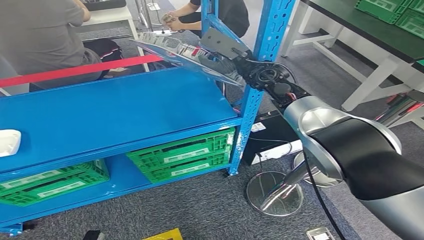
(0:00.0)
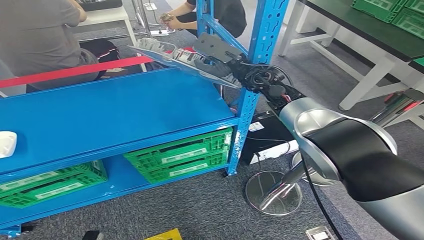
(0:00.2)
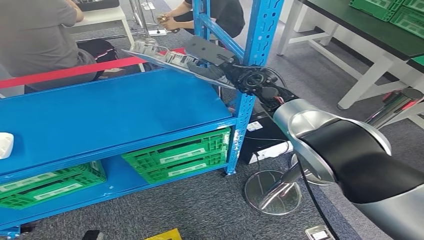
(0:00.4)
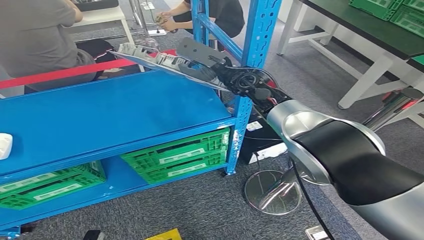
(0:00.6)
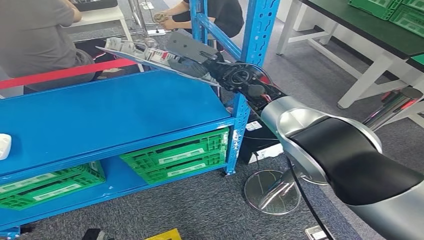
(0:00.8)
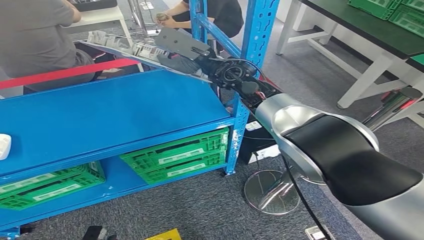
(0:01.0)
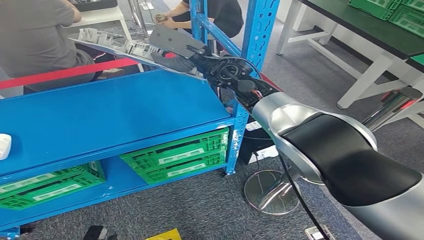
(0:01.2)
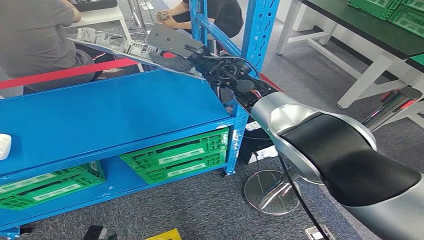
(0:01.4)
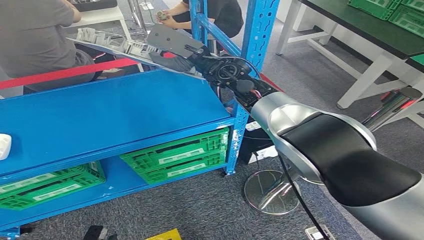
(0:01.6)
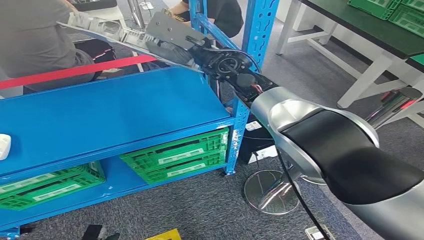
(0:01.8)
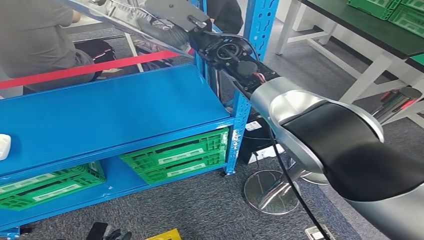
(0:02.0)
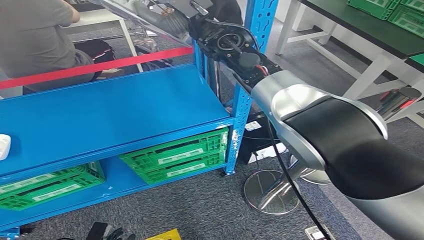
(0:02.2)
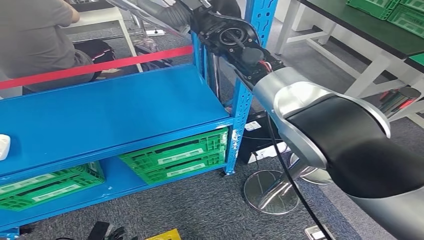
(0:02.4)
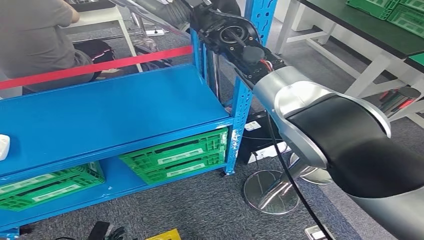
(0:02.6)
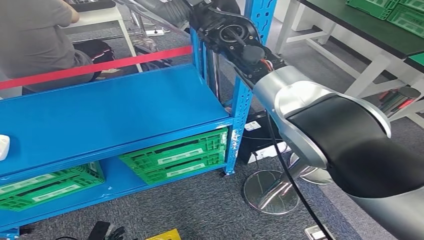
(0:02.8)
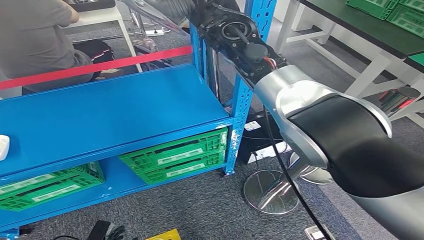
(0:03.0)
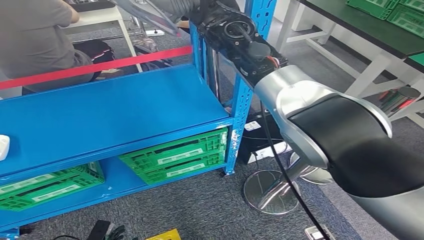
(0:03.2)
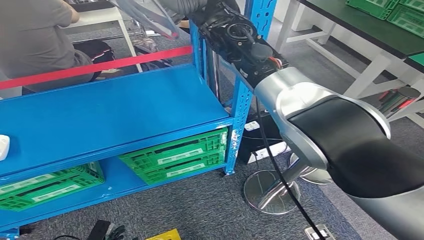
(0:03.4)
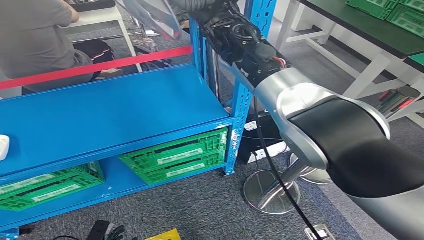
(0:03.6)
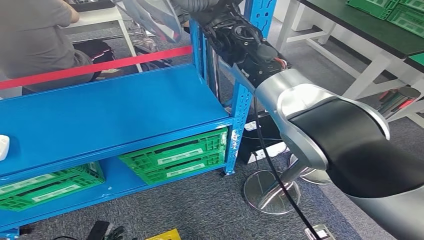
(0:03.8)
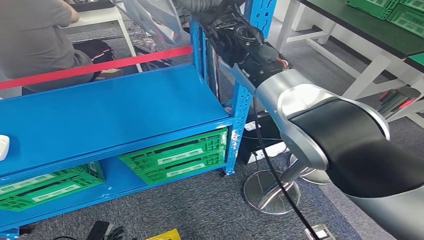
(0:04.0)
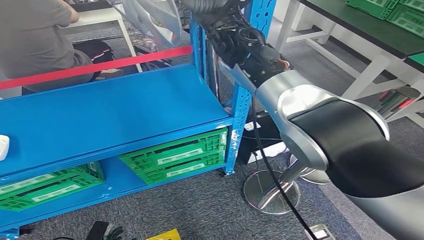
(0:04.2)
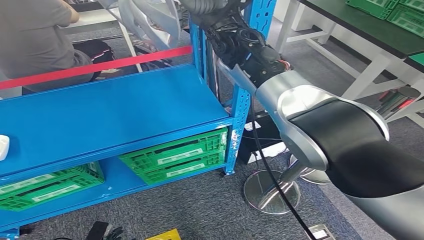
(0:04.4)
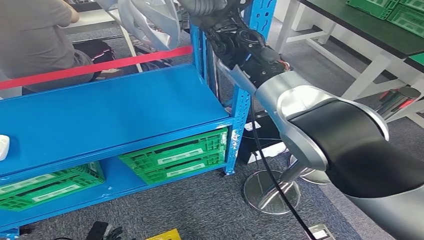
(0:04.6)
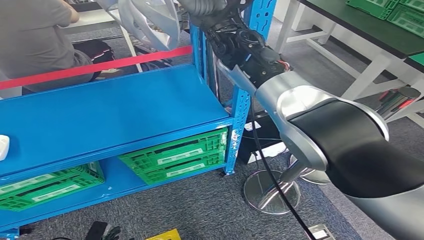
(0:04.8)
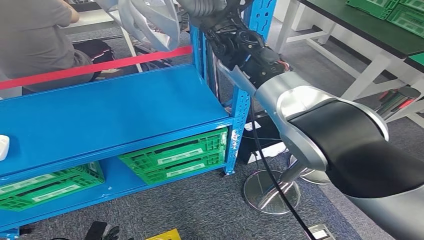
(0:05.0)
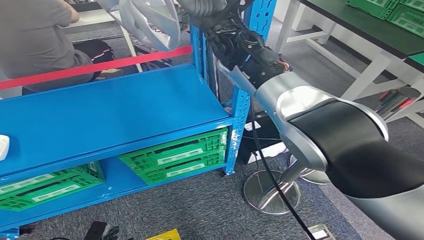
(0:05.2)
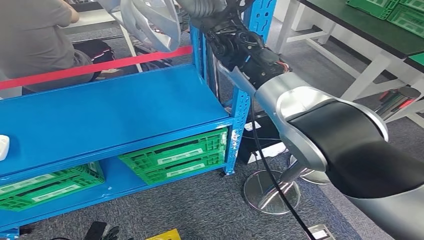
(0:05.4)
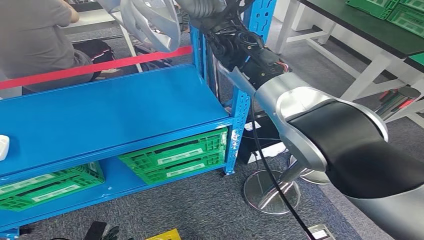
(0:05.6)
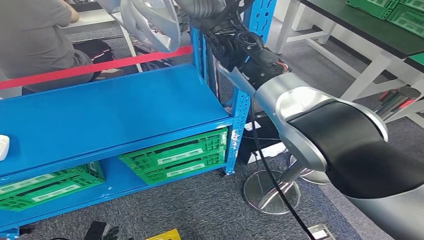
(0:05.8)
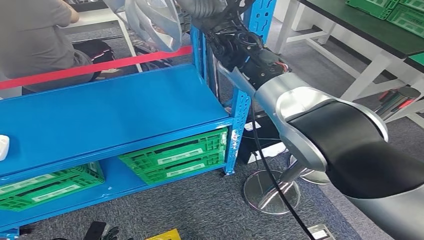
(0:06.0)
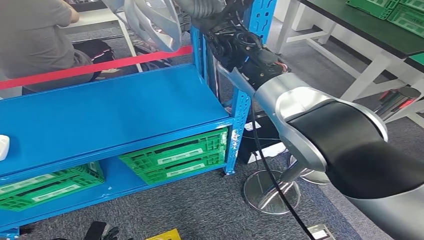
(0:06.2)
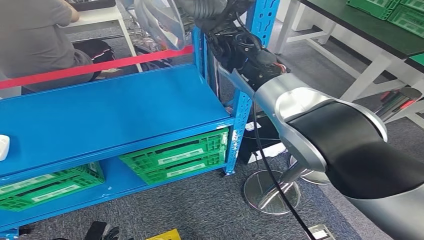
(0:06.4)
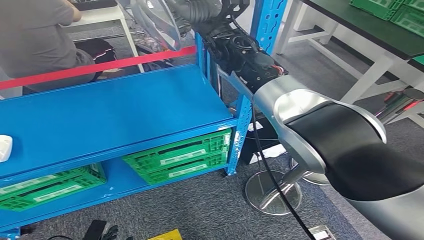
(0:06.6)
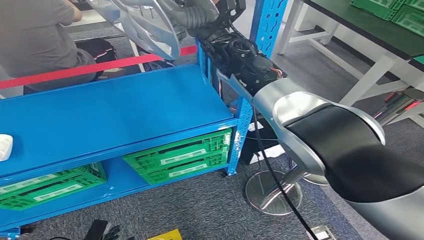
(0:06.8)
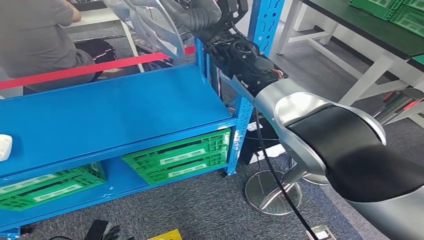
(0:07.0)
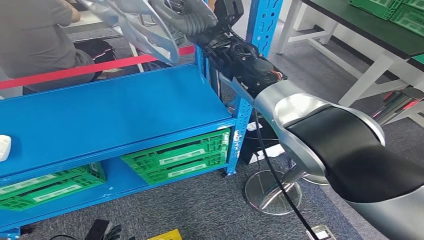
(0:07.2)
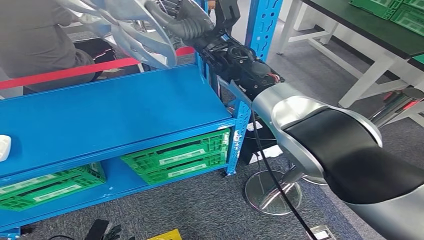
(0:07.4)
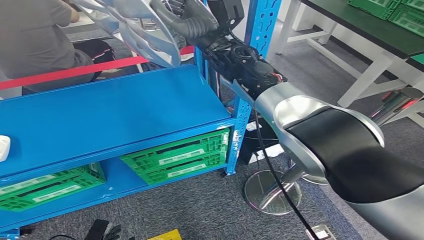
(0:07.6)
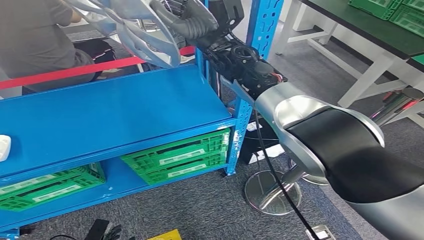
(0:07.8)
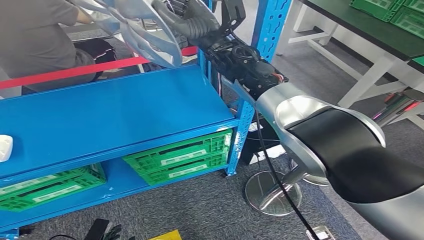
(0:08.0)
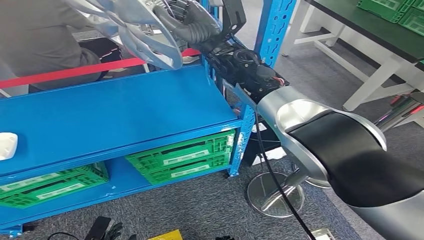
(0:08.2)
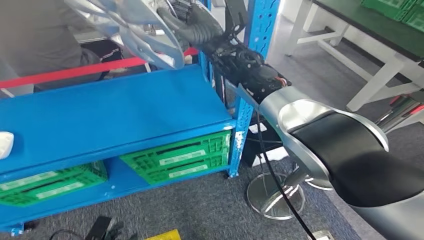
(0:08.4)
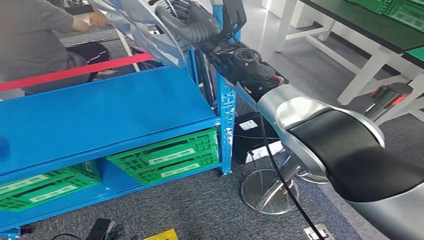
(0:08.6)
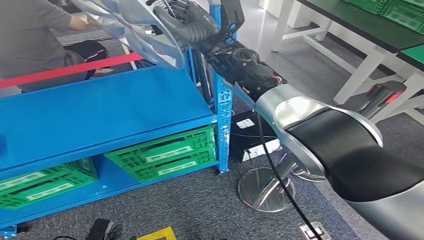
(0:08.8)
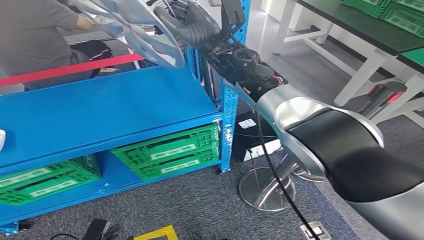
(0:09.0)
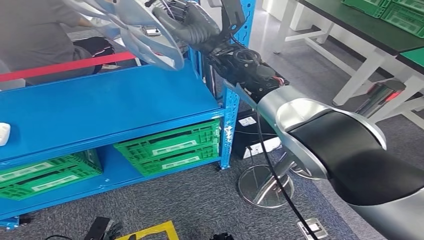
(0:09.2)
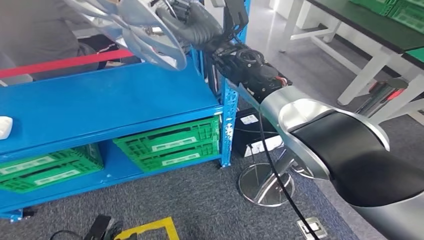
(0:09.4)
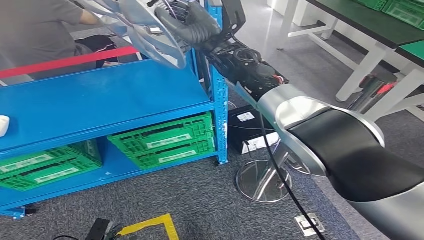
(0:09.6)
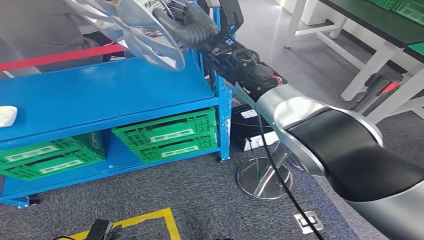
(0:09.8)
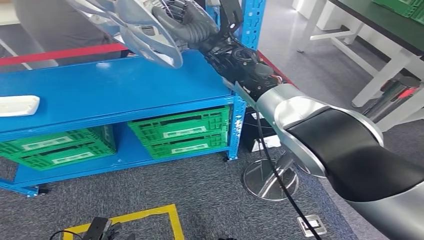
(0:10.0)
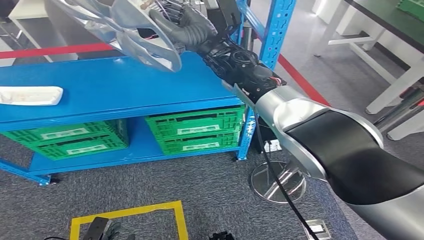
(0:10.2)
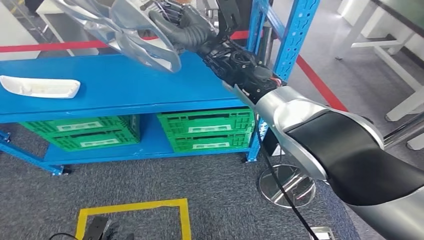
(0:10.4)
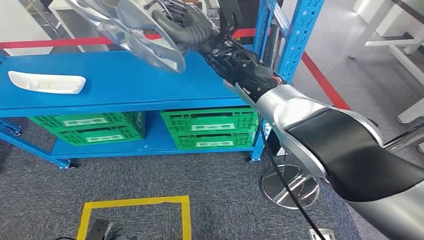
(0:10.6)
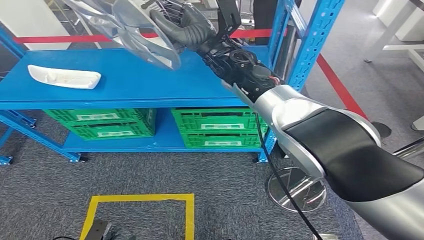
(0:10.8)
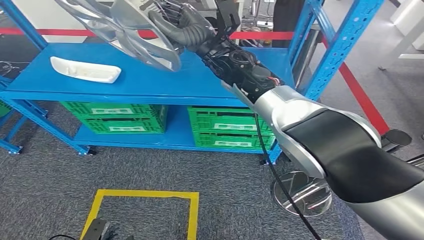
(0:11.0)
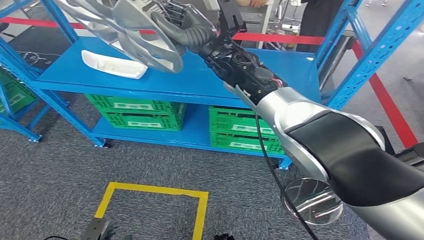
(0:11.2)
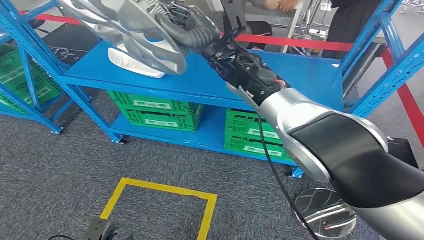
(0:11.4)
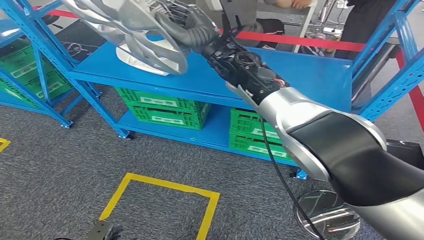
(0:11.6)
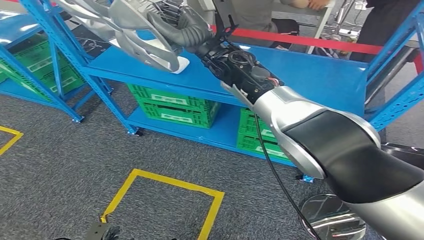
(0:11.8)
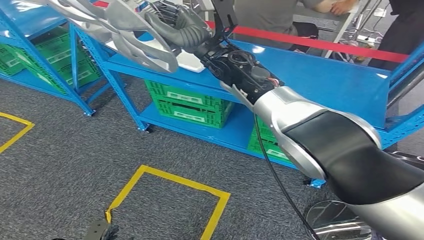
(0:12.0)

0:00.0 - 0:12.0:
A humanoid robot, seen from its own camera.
0:04.4 - 0:06.0: Neither hand changes place.
0:06.0 - 0:07.6: The hands move only a little.

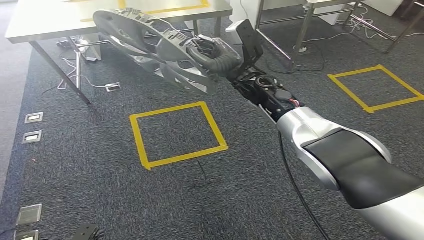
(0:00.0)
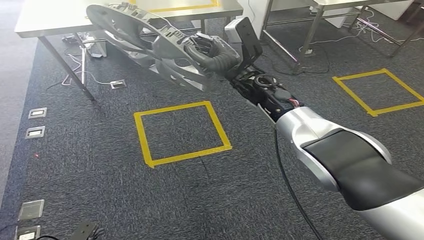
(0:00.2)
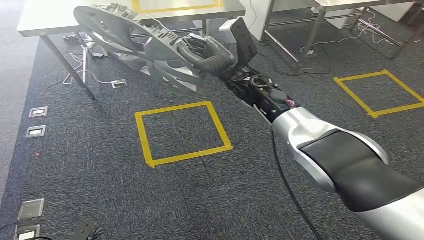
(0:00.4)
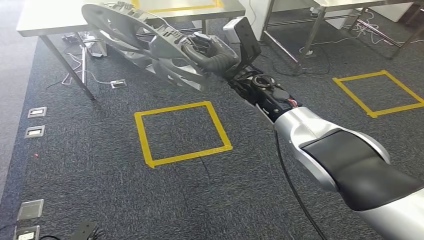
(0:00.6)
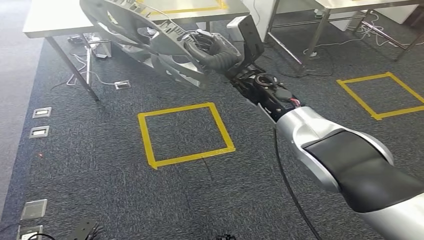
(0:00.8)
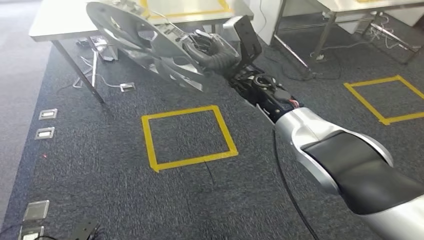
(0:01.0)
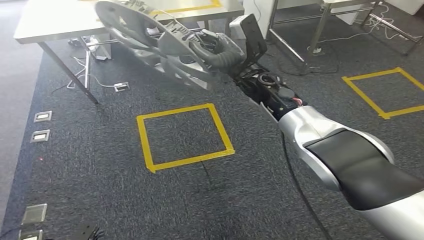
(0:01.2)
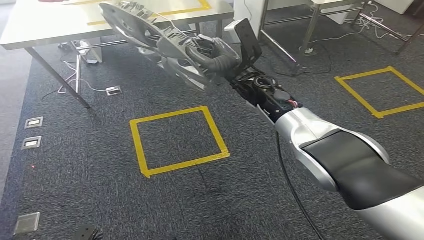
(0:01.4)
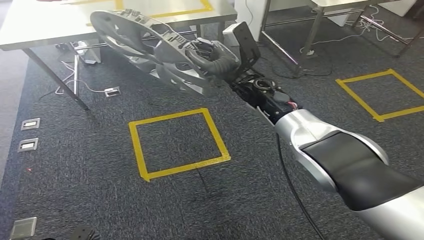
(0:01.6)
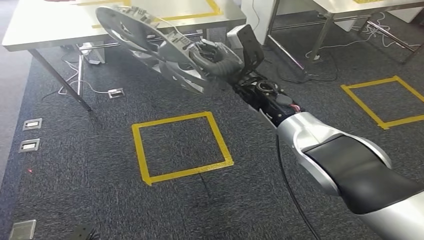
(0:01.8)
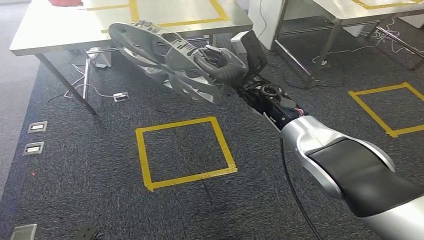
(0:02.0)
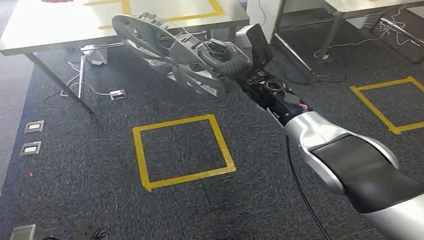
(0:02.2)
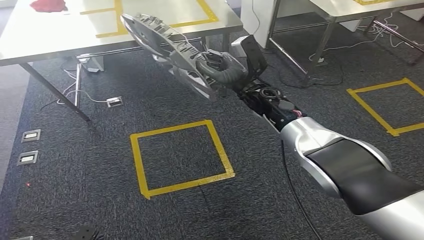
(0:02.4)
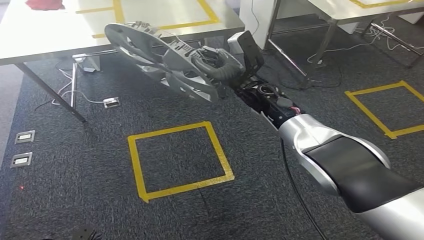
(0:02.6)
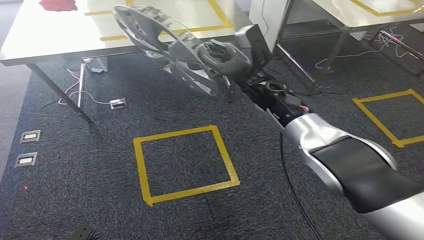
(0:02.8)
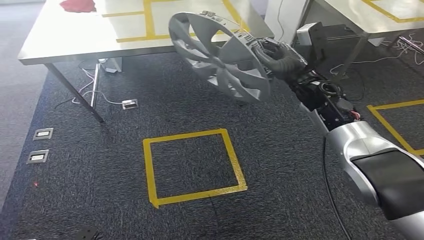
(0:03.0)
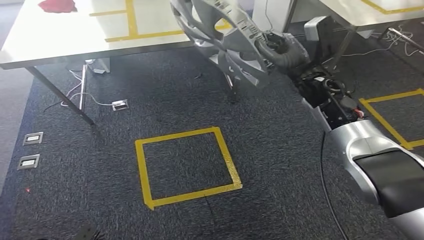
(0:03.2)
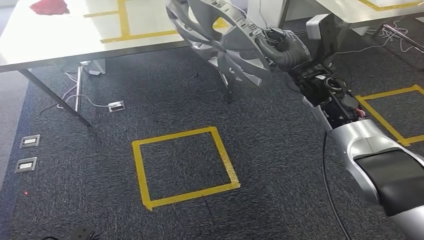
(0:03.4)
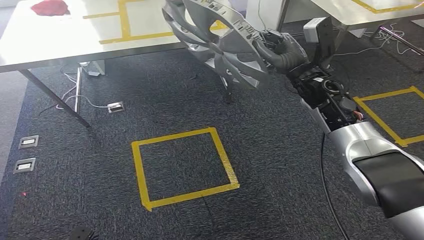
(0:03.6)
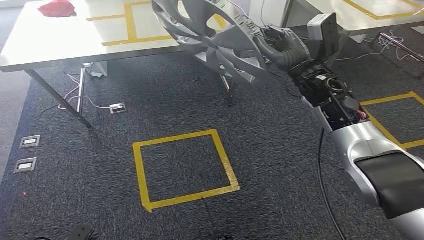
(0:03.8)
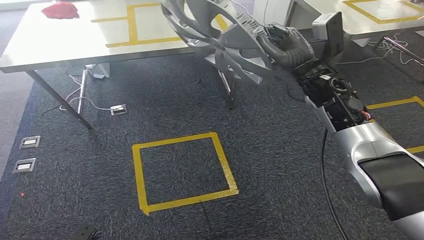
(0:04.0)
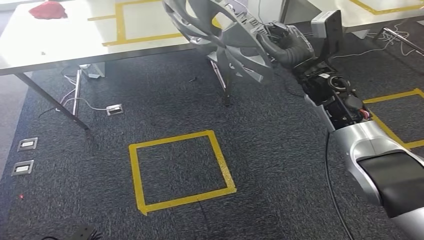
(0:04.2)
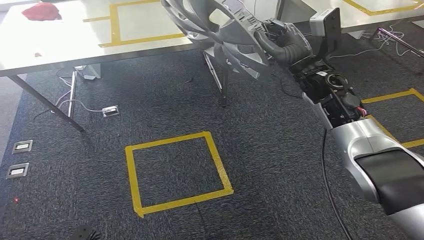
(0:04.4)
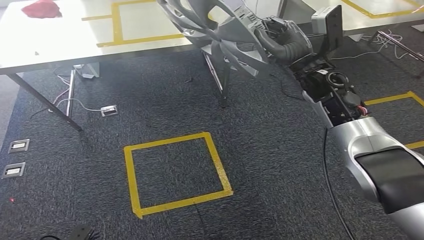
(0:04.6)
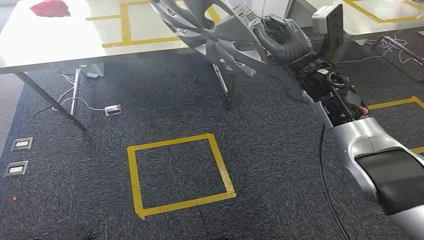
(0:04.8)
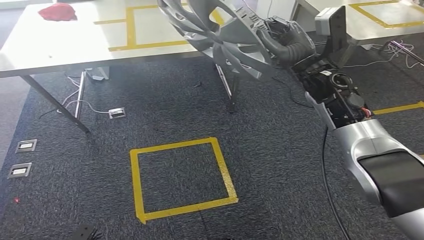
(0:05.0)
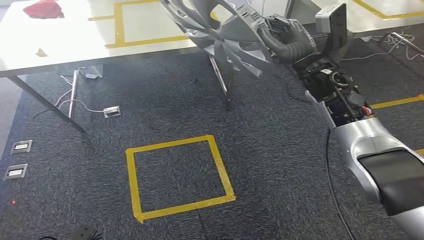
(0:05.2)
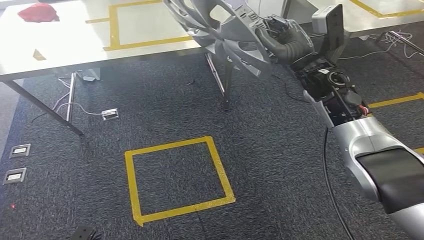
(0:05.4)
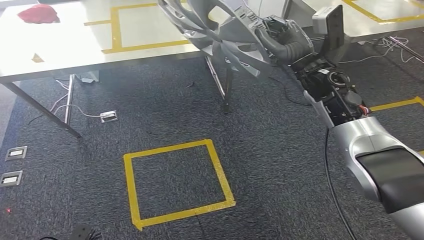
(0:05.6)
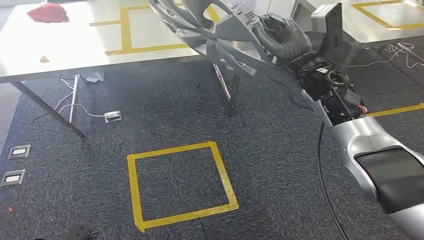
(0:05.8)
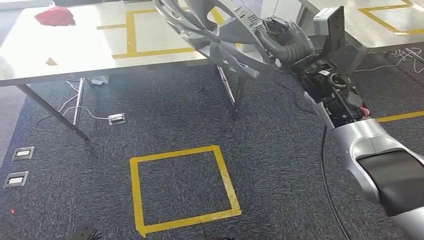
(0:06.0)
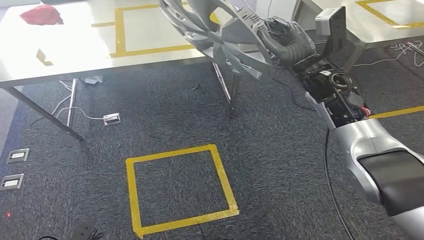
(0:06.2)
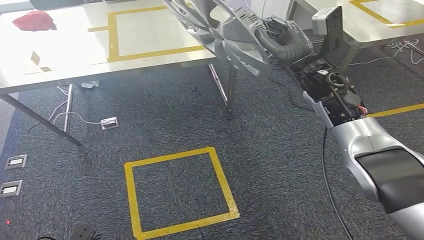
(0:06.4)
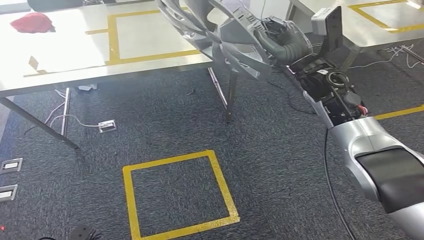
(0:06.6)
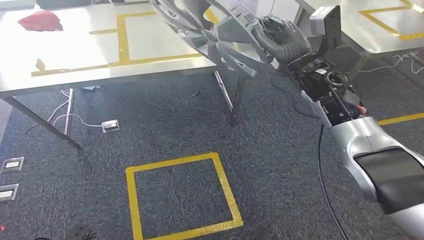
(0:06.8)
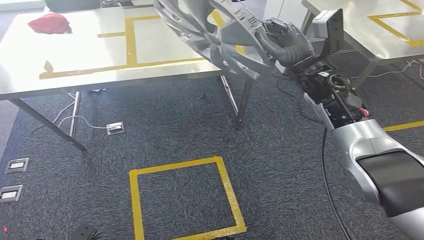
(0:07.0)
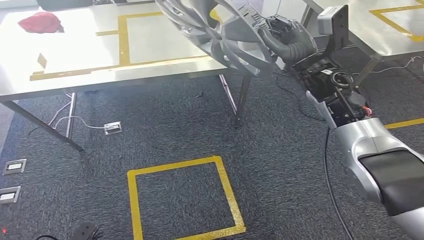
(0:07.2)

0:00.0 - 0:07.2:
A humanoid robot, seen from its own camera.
0:00.0 - 0:01.4: The hands stay close to where they were, moving slightly.
